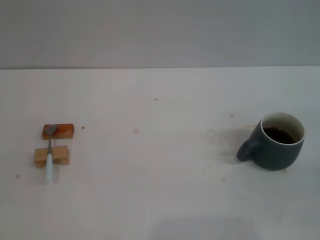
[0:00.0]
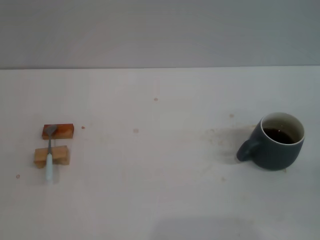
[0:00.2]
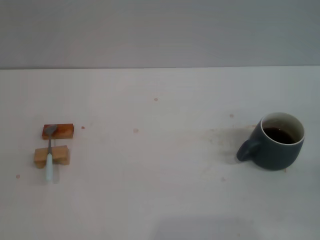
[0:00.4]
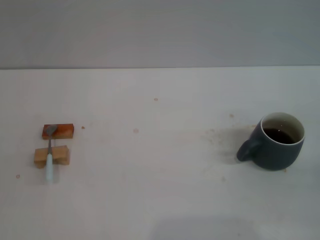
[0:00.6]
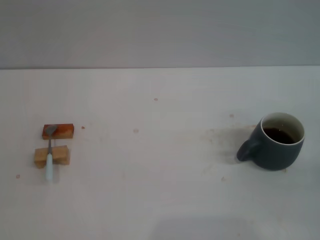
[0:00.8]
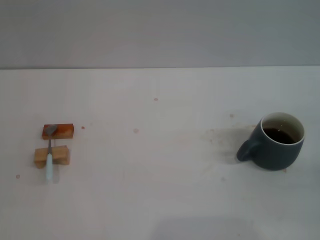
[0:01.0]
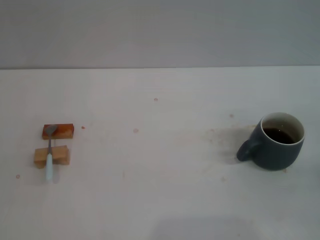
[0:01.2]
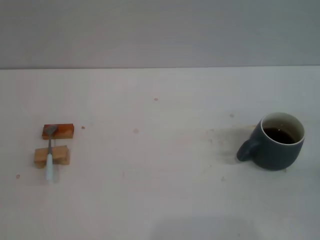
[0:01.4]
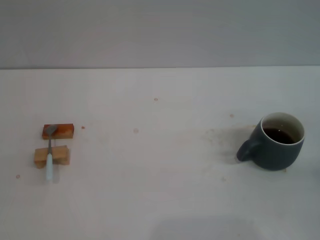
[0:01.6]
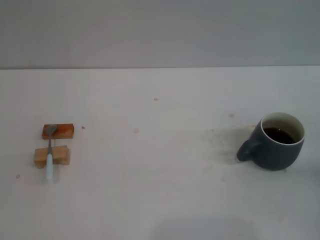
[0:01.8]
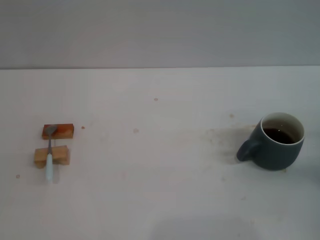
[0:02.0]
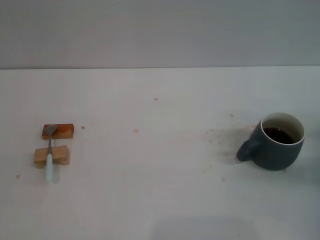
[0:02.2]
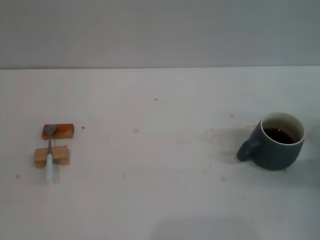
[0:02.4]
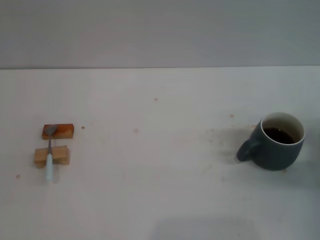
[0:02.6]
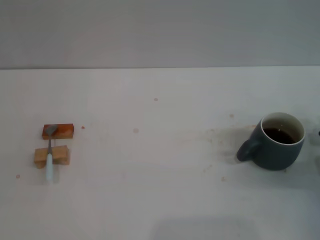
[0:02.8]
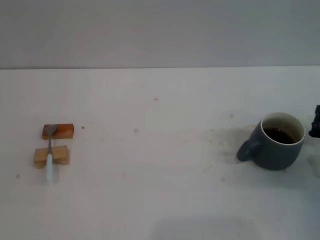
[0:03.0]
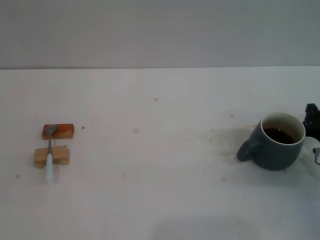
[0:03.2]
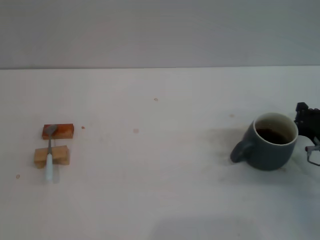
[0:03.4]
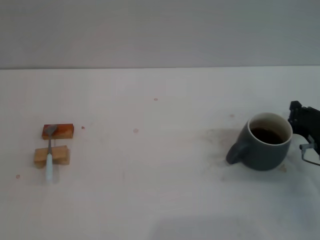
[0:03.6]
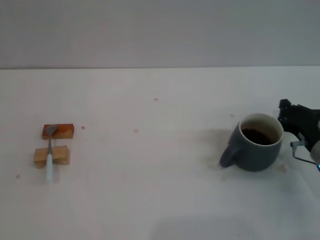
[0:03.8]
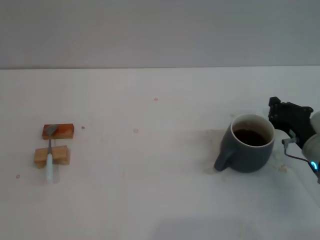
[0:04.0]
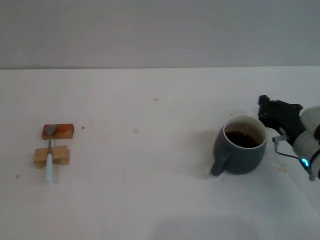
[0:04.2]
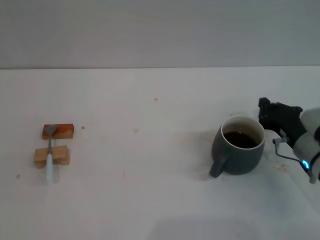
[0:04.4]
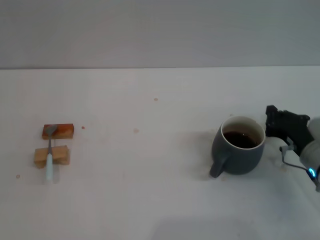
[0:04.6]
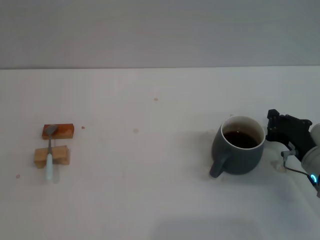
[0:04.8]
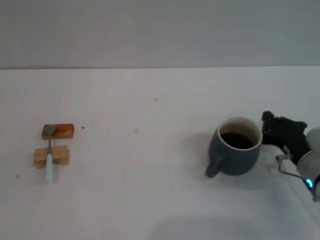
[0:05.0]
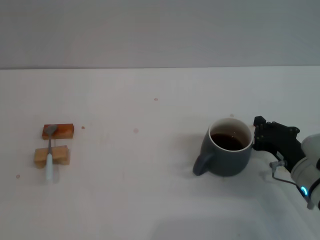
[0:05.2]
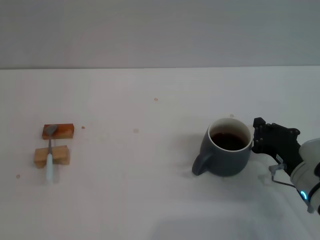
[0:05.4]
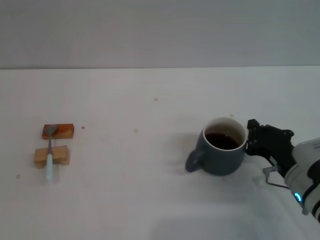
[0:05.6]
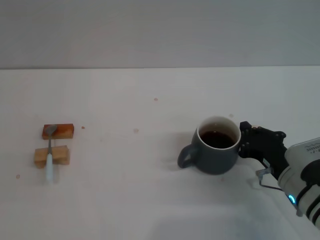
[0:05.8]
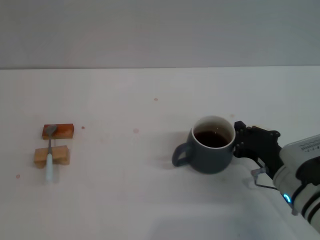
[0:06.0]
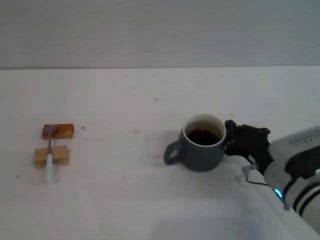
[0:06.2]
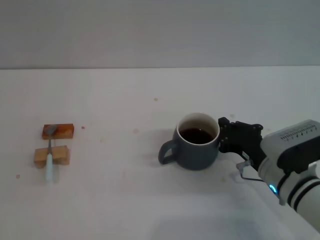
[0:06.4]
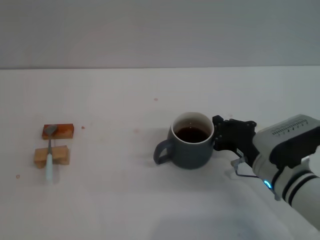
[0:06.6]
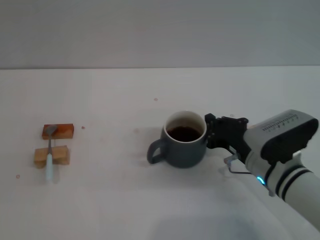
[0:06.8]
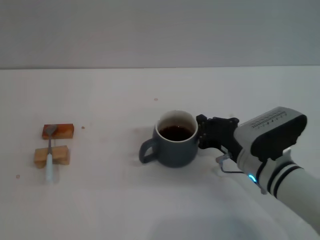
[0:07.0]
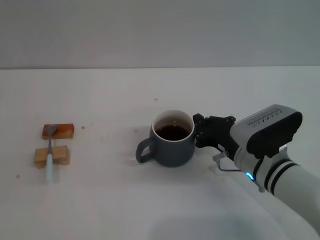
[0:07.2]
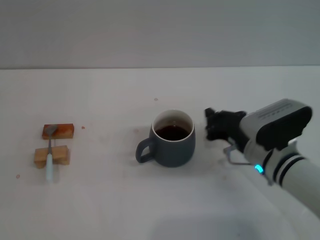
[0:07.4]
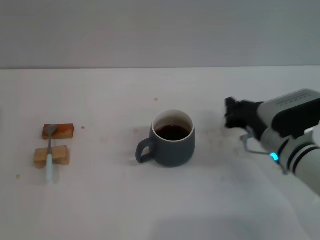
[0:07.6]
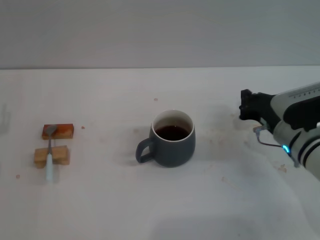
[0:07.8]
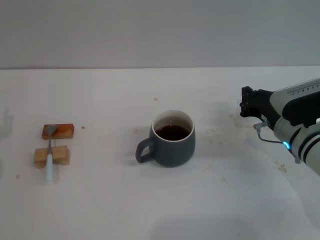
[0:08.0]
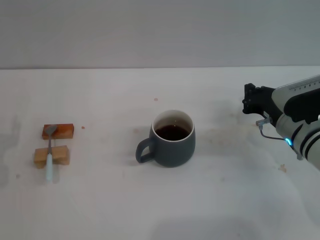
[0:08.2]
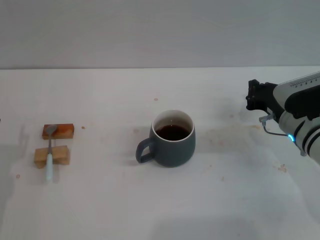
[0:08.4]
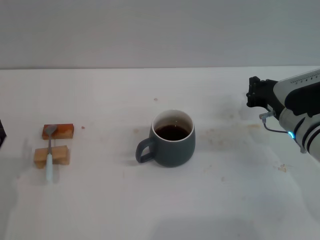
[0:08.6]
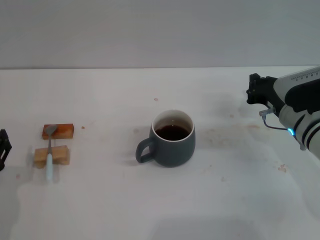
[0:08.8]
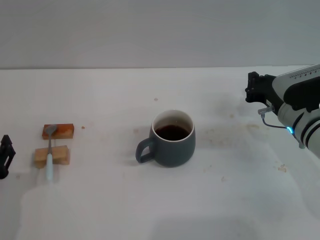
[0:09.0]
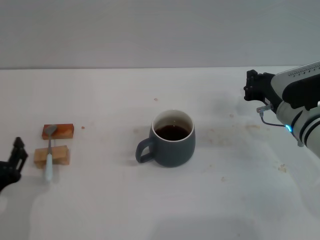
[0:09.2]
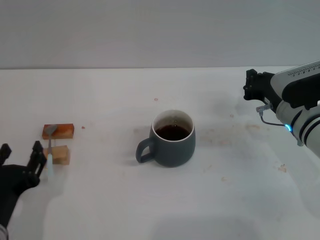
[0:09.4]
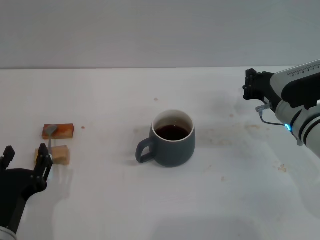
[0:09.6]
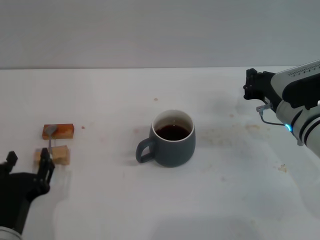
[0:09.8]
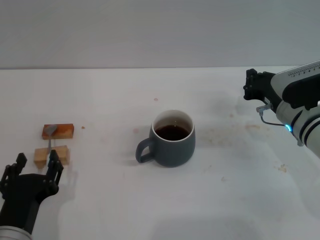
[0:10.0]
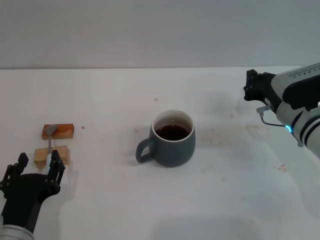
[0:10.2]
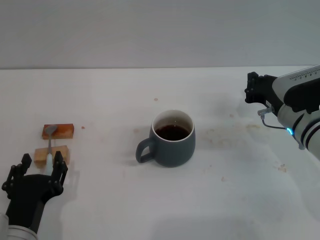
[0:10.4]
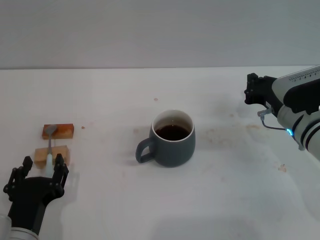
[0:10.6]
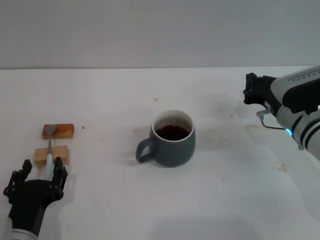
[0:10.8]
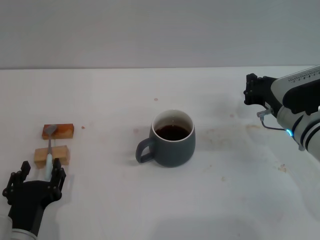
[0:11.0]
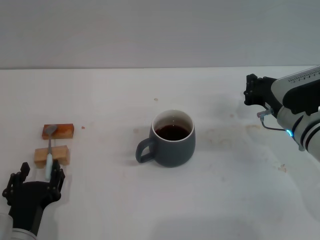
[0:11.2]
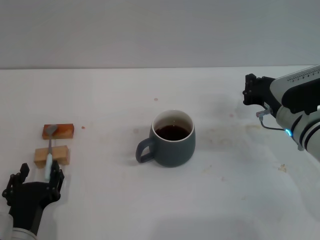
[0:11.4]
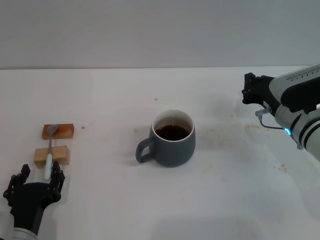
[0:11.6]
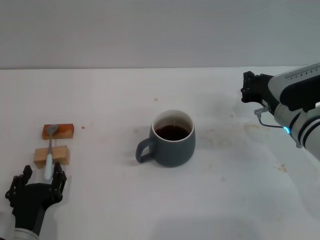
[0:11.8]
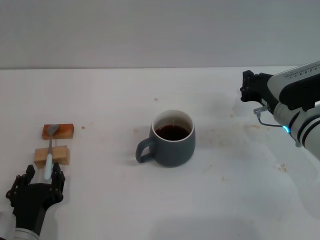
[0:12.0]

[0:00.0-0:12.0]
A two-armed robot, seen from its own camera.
Task of the whole recording: Move the grey cup to the center, lift the blue spoon, stir it three times in the cup, and put the spoon into the cup.
Step, 0:00.0 to 0:07.4: Move the cup with coffee to the center of view with the right gripper.
0:01.6 to 0:03.0: The right gripper heads to the left, covering roughly 10 cm, and closes.
0:03.0 to 0:04.4: The right gripper shifts some 5 cm to the left.
0:04.4 to 0:06.0: The right gripper moves backward, about 5 cm.
0:06.0 to 0:07.6: The right gripper travels forward by roughly 5 cm.
0:07.6 to 0:09.0: The left gripper is displaced backward and to the right by approximately 15 cm.
0:09.0 to 0:10.4: The left gripper travels to the right by roughly 5 cm.
0:10.4 to 0:12.0: There are only small adjustments of the grippers.

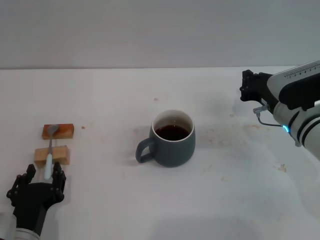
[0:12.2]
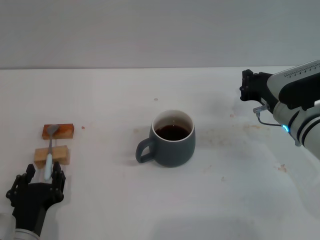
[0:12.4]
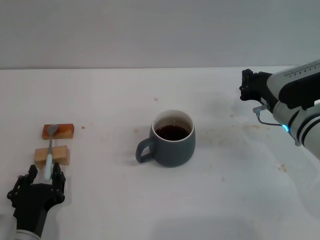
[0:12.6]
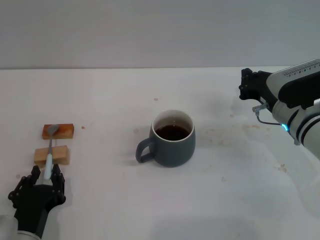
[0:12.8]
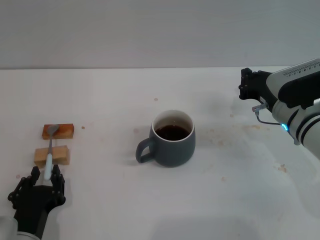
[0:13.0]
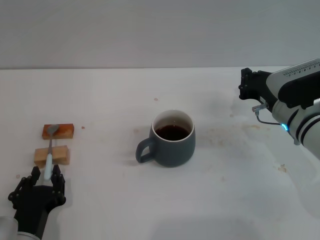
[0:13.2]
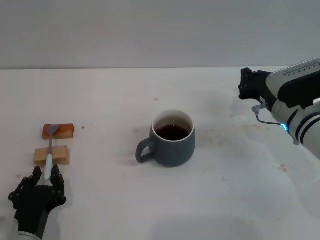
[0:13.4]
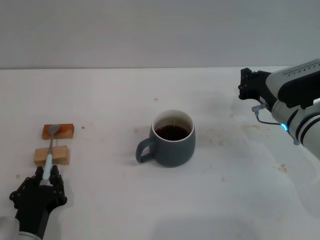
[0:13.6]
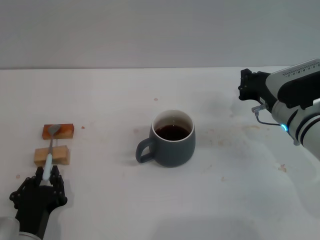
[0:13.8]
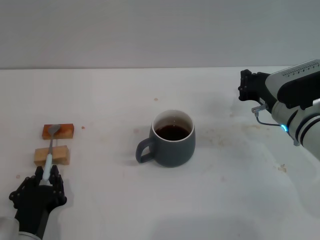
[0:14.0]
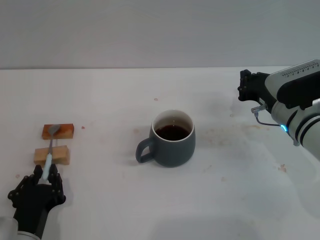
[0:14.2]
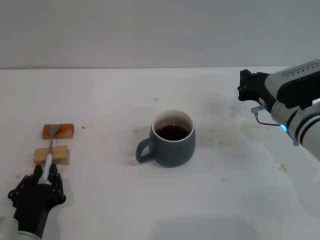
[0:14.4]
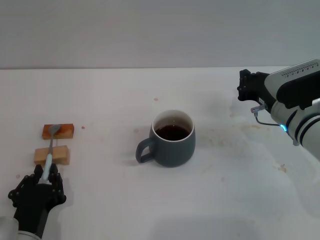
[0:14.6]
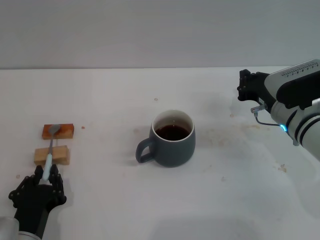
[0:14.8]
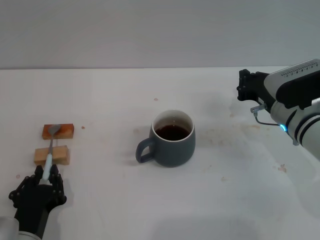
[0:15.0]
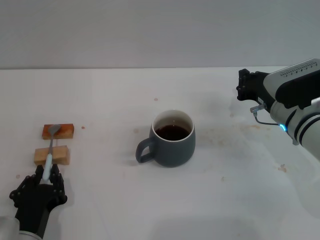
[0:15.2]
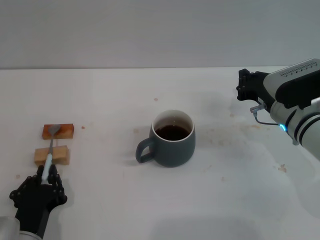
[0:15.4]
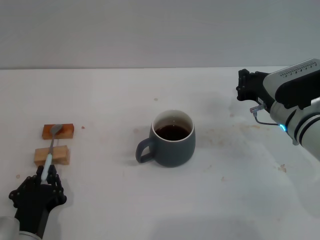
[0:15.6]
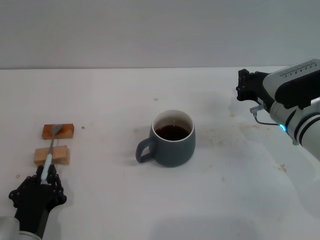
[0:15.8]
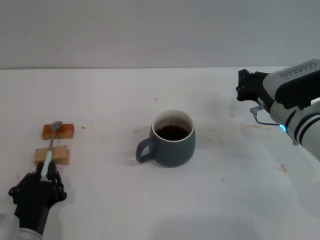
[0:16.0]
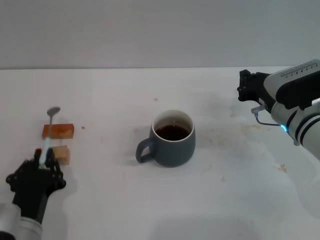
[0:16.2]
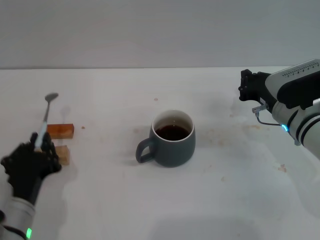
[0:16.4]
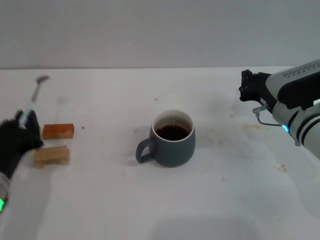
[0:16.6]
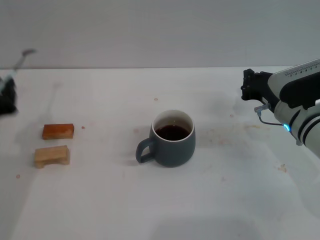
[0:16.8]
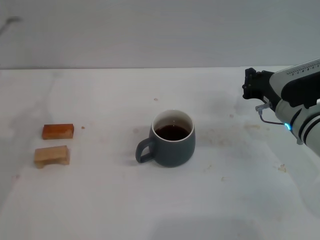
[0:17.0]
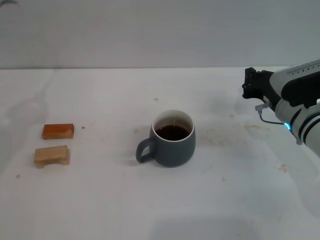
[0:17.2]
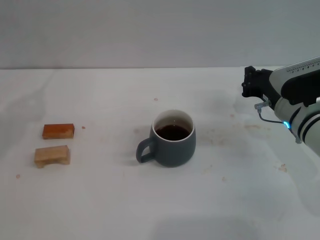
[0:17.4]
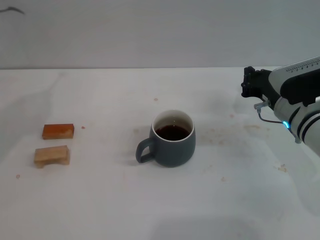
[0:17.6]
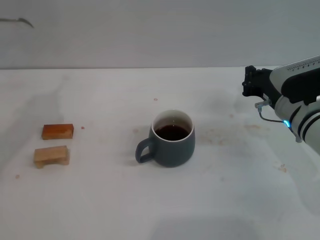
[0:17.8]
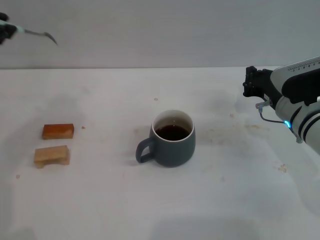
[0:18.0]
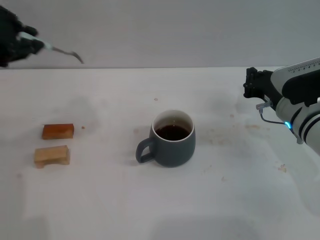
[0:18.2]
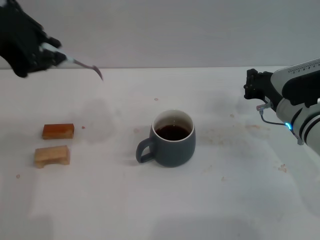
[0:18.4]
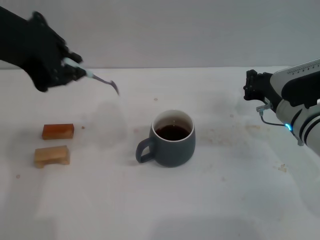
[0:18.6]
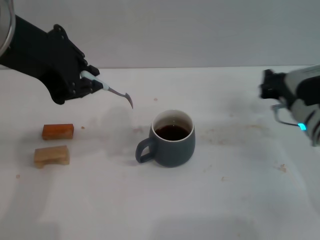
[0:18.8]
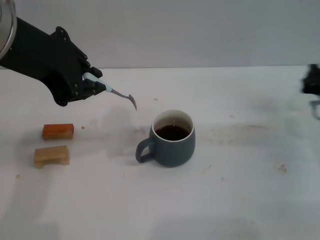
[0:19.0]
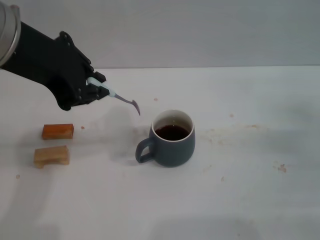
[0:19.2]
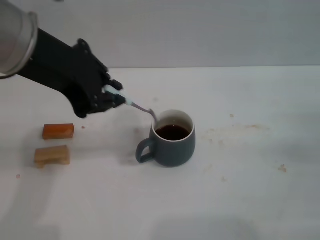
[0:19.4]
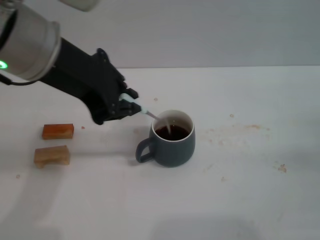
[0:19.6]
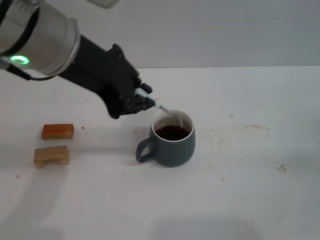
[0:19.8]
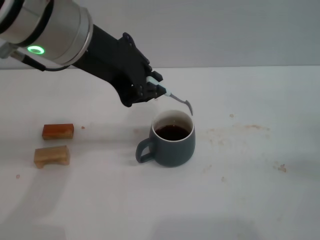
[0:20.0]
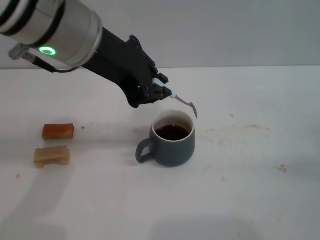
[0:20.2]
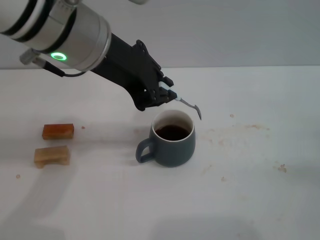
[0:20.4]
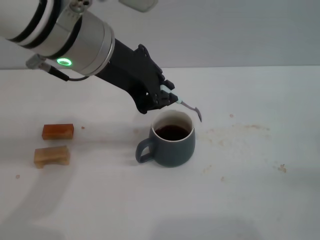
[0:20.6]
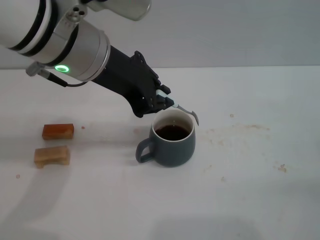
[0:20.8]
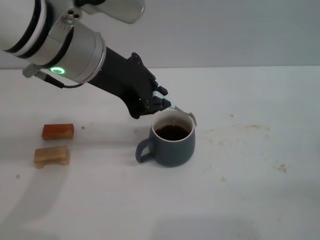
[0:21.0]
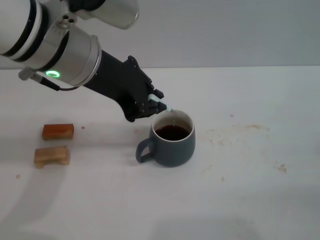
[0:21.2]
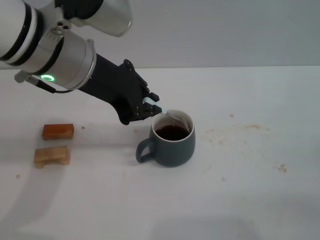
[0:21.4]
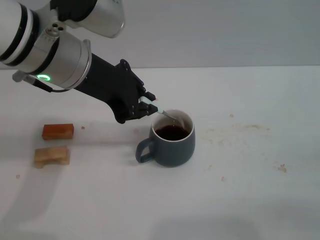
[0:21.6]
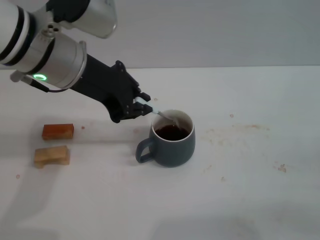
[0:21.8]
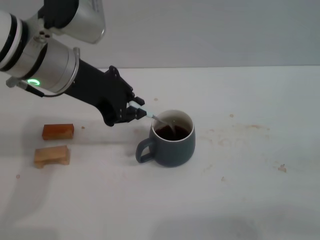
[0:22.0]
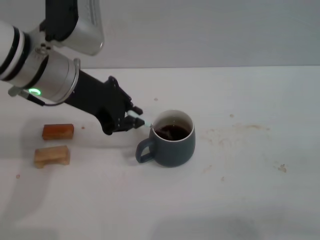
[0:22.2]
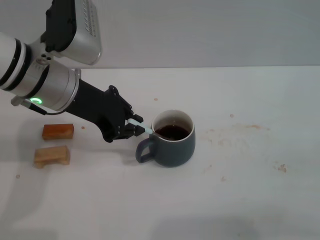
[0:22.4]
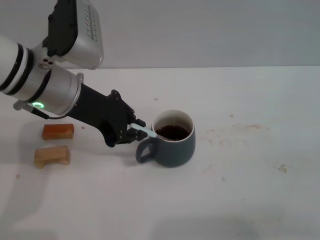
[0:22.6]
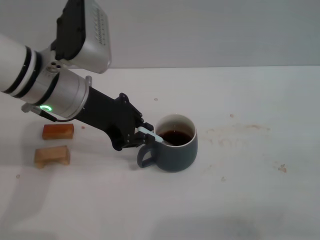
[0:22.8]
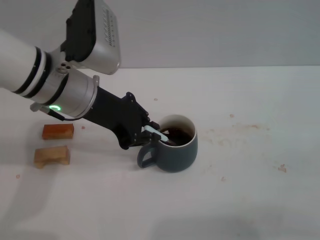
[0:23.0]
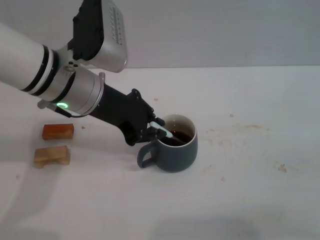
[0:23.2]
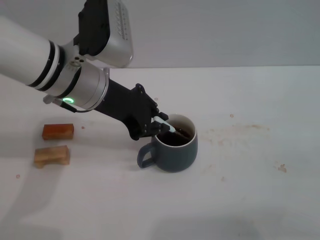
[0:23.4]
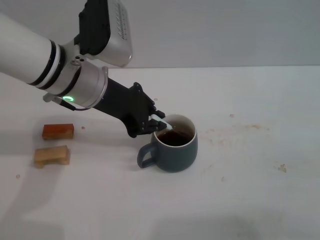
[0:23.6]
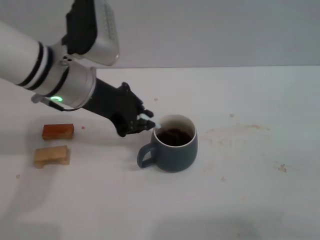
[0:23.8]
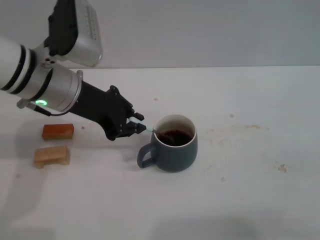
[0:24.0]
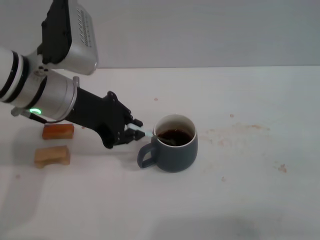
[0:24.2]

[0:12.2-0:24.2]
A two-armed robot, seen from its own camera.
Task of the whole recording: Move the grey cup to the center, lift the blue spoon, stir it three times in the cup, and put the spoon into the cup.
Step, 0:12.2 to 0:16.2: Pick up the spoon with the left gripper.
0:12.2 to 0:13.8: The left gripper closes its fingers.
0:13.8 to 0:15.2: Both grippers stay put.
0:15.2 to 0:16.6: The left gripper travels upward and forward by approximately 10 cm.
0:16.6 to 0:18.2: The left gripper travels upward by approximately 25 cm.
0:18.2 to 0:19.8: The left gripper moves to the right, approximately 10 cm. The right gripper travels to the right and backward by some 20 cm.
0:19.8 to 0:21.2: The right gripper goes some 5 cm backward, while the left gripper shifts by about 5 cm.
0:21.2 to 0:22.6: The left gripper travels downward by approximately 5 cm; the right gripper is displaced to the left by about 5 cm.
0:22.6 to 0:24.2: There are only small adjustments of the grippers.
